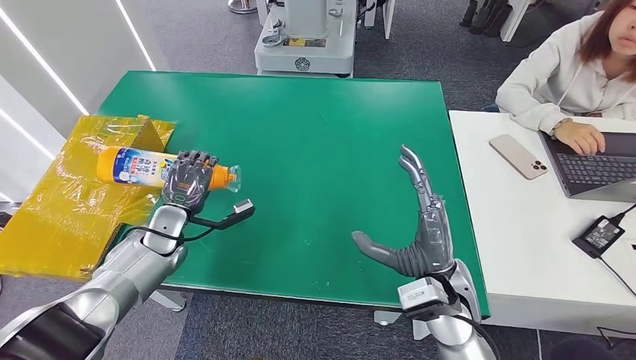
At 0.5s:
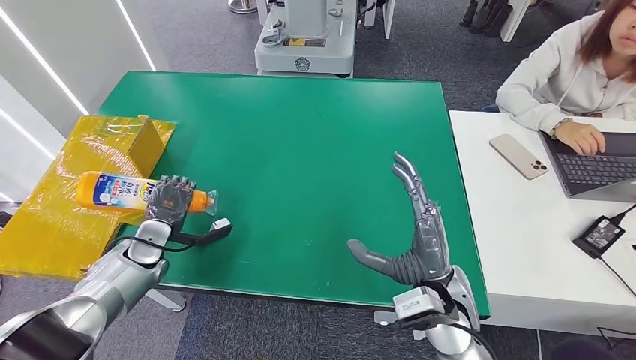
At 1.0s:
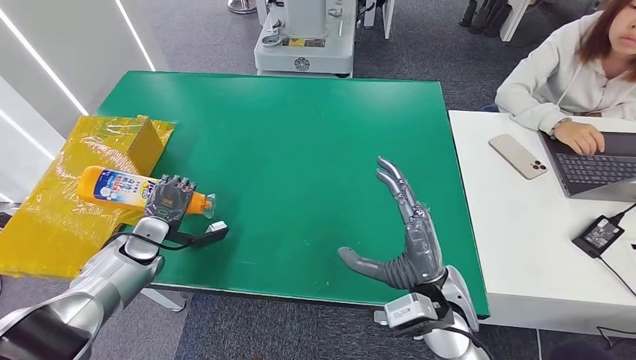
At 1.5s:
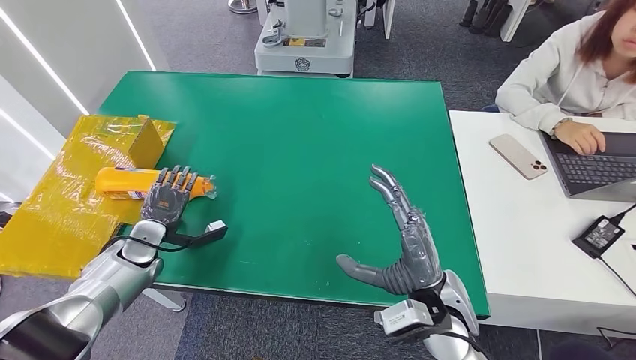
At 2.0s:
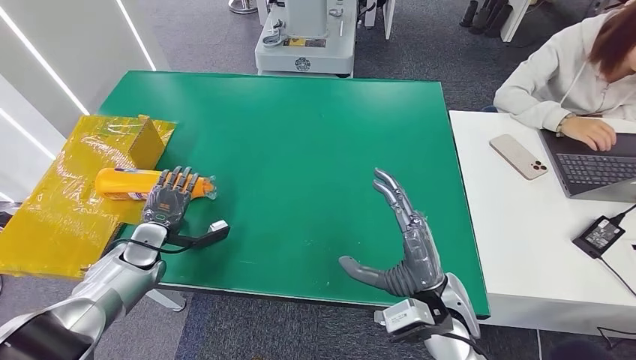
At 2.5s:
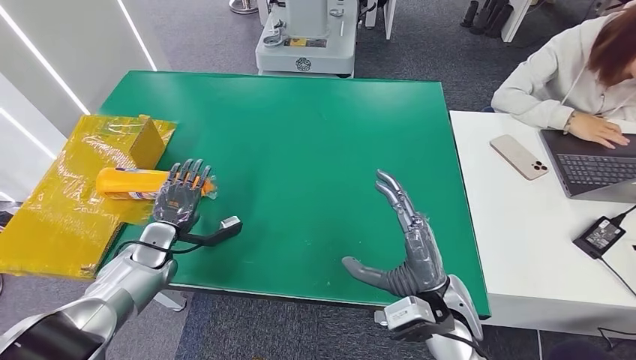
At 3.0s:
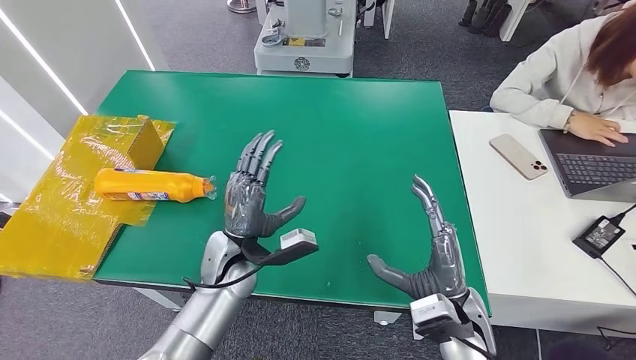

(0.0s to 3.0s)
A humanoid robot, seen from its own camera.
Step, 0.0s - 3.0s: Turn the bottle to the front side.
0.0s - 1.5s: The left hand goes roughly 5 cm to the left.
1.5s - 3.0s: The left hand shifts approximately 20 cm to the right.
